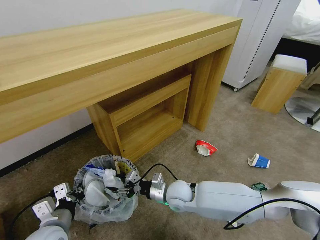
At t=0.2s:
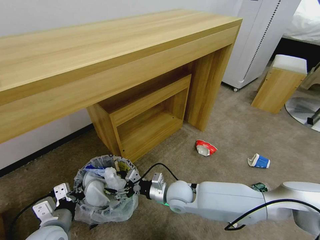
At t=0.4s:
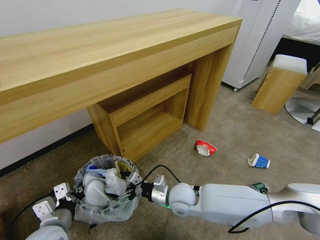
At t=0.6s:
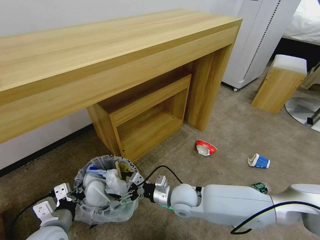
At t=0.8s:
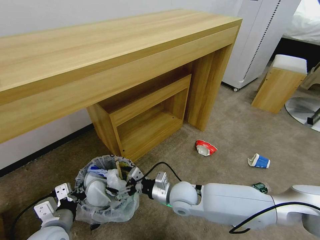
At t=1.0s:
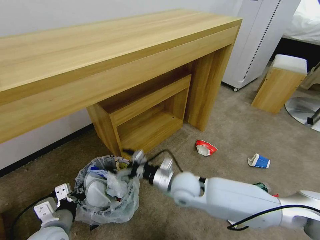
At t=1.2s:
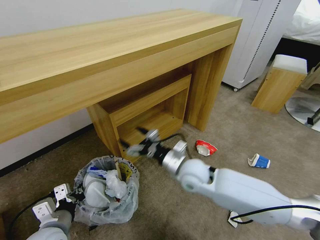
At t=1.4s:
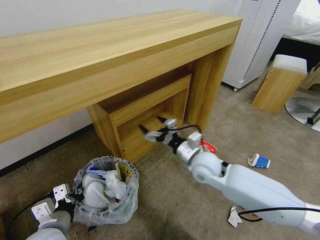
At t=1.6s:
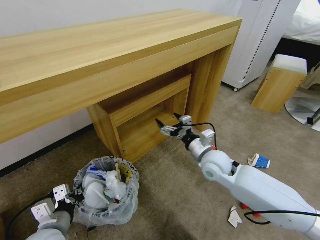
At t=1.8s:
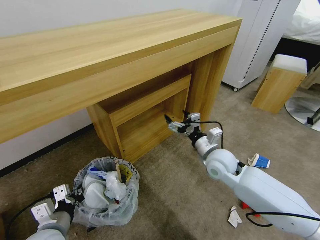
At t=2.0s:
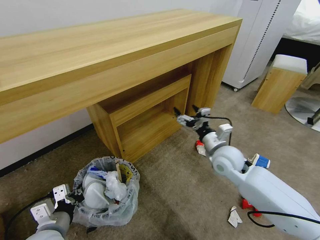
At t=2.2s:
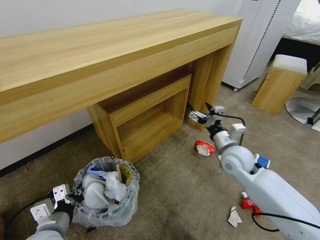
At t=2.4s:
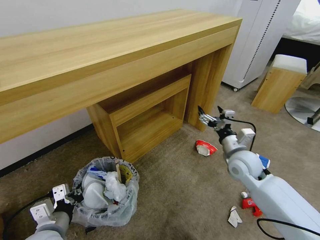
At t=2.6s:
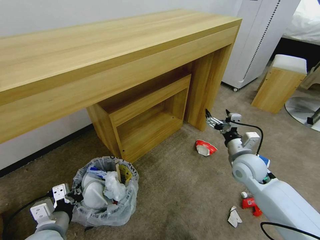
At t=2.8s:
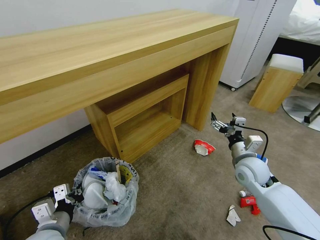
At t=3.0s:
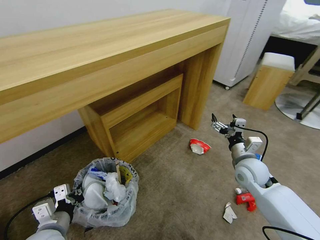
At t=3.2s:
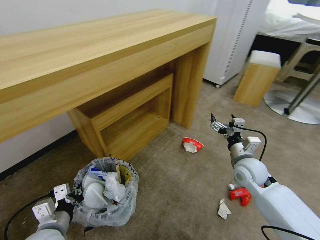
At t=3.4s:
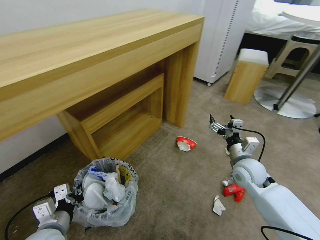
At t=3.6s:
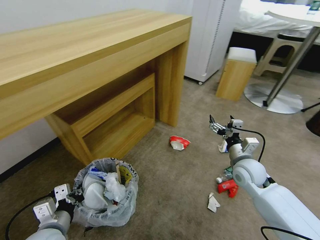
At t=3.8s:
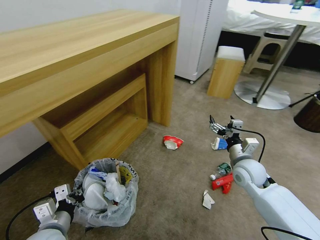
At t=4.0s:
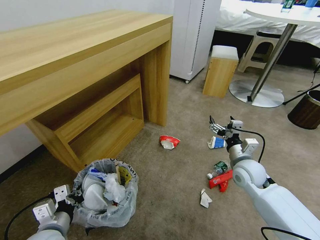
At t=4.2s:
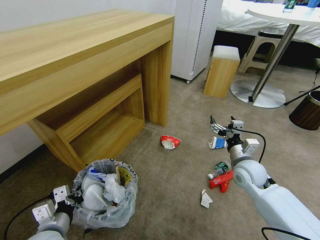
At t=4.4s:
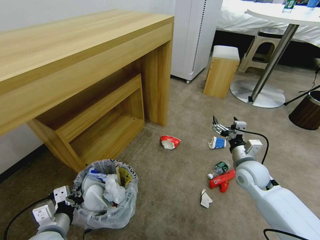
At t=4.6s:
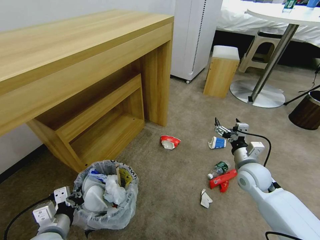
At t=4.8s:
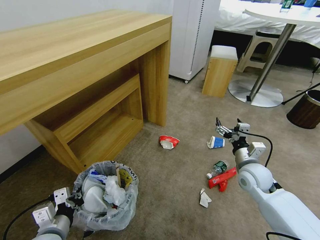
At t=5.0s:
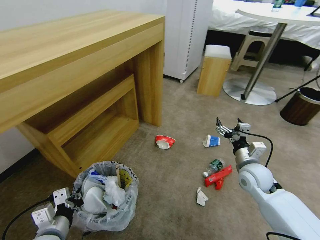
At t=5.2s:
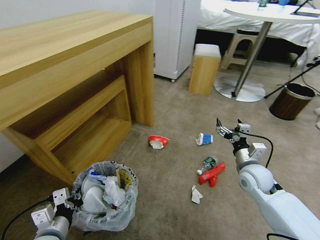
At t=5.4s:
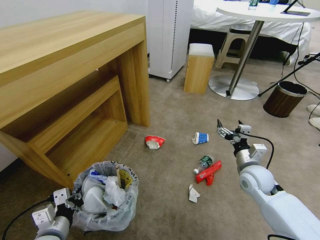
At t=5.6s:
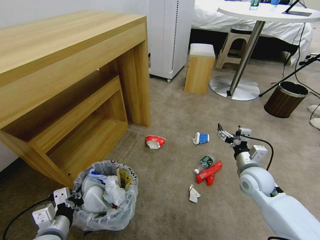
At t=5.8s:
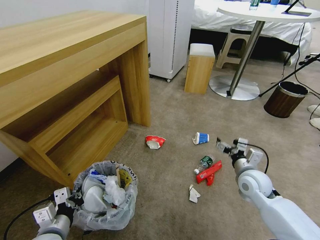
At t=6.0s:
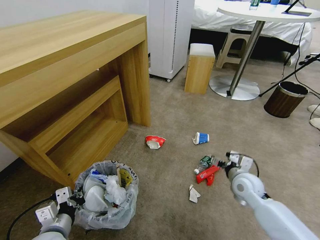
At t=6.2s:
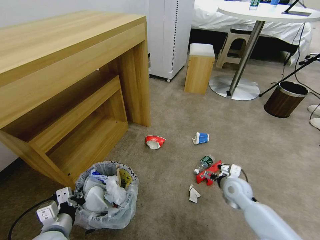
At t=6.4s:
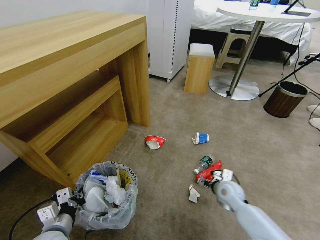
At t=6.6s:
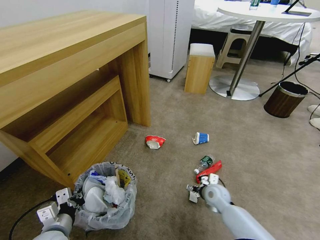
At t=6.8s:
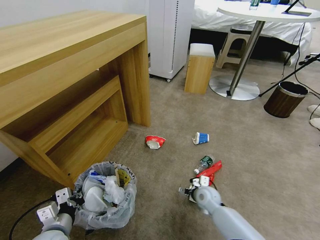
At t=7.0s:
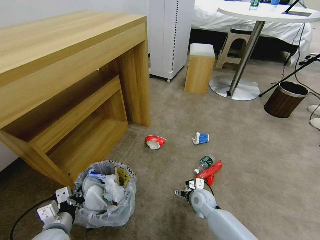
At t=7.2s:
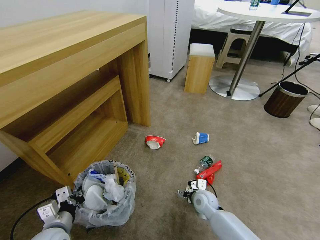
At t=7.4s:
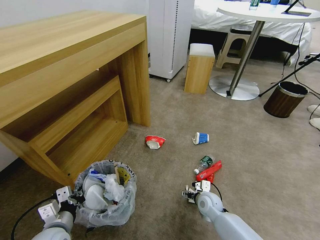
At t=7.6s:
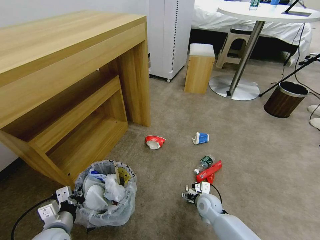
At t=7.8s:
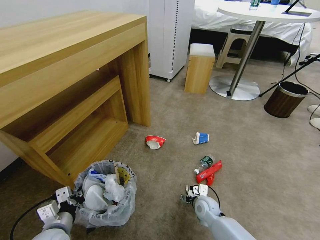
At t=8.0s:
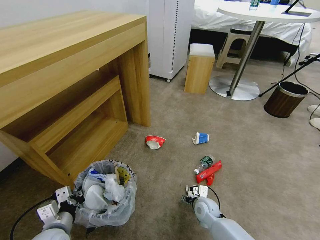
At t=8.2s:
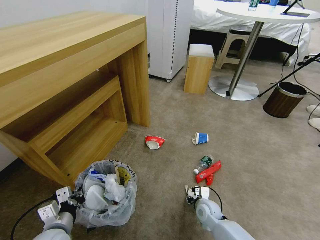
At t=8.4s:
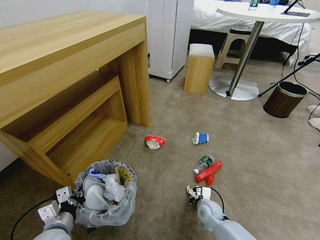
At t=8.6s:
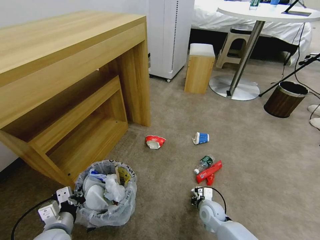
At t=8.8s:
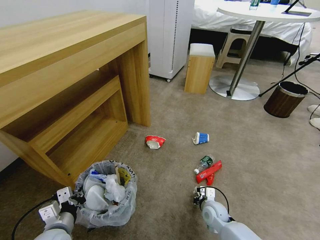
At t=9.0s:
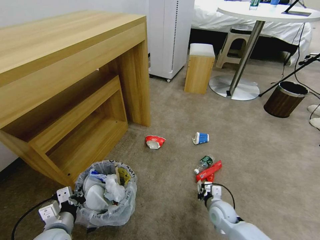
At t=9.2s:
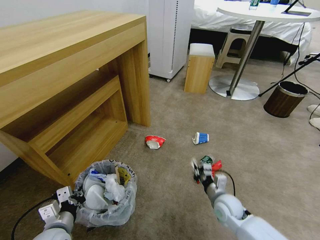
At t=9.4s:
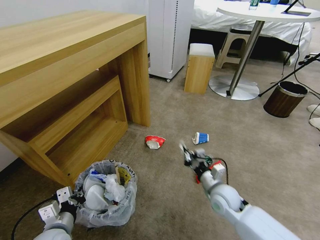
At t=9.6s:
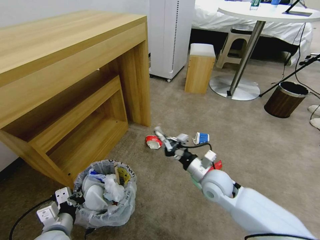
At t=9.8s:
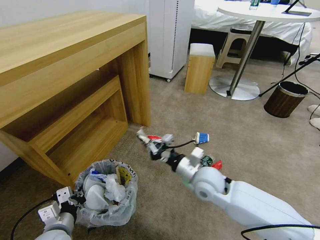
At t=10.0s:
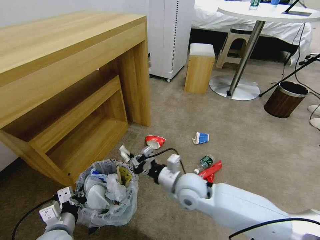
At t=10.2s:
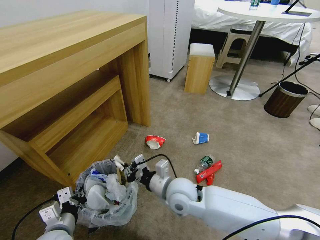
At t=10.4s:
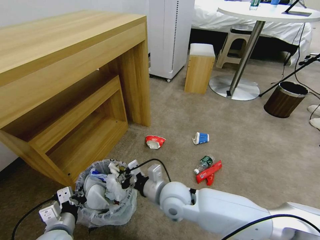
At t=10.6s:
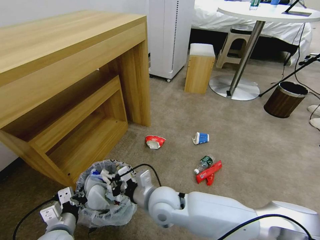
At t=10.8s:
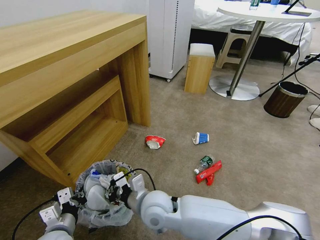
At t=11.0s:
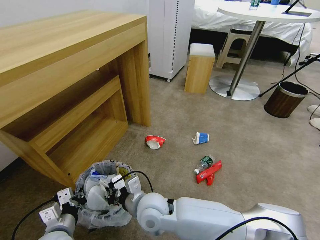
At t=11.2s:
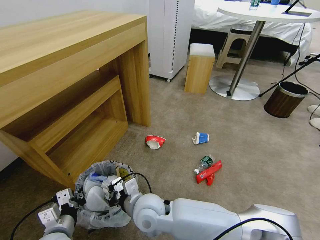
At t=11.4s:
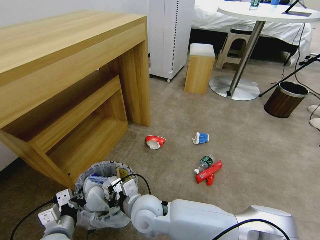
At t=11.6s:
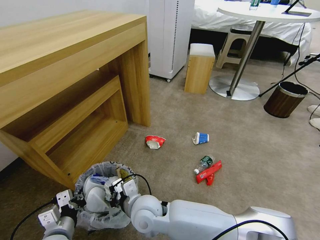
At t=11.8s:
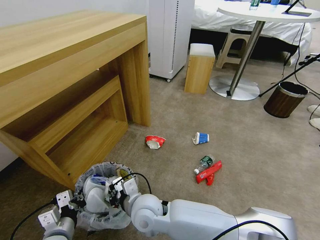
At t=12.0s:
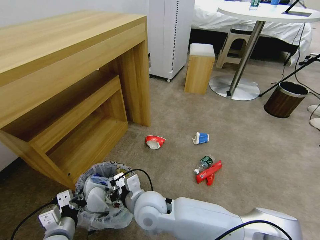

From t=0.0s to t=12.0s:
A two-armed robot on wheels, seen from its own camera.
Task of the whole recording: Pick up the trash bin and place the garbage on the floor into it.
From t=0.0s to t=1.6s: The right gripper goes roughly 15 cm to the right, upward and forward, and opens its fingers.
From t=1.6s to t=3.0s: The right gripper moves to the right, about 10 cm.
From t=4.4s to t=6.0s: The right gripper changes place by some 5 cm.
From t=6.0s to t=7.6s: The right gripper travels downward and to the left by roughly 20 cm.
From t=7.6s to t=9.0s: The right gripper moves some 5 cm, and closes its fingers.
From t=9.0s to t=10.4s: The right gripper moves to the left and upward, some 25 cm.
From t=10.4s to t=12.0s: The right gripper moves to the left, about 5 cm, and opens its fingers.

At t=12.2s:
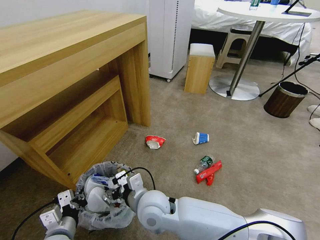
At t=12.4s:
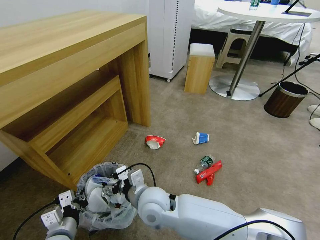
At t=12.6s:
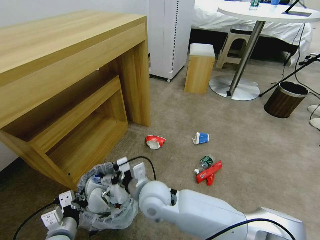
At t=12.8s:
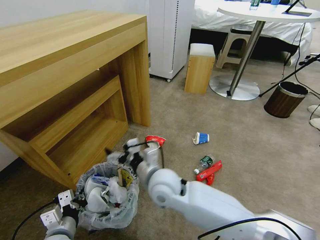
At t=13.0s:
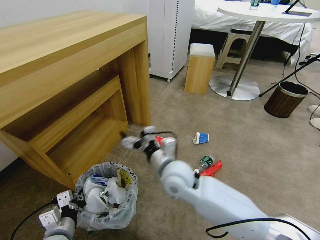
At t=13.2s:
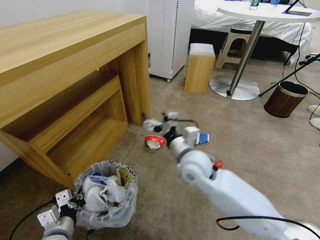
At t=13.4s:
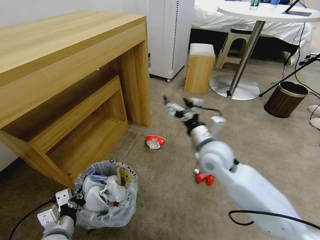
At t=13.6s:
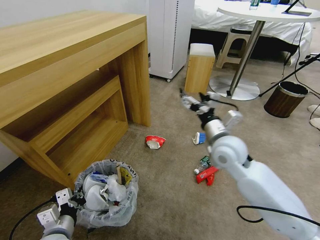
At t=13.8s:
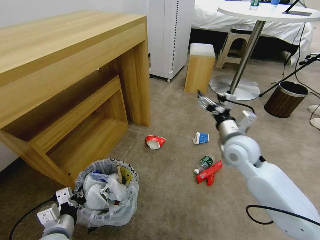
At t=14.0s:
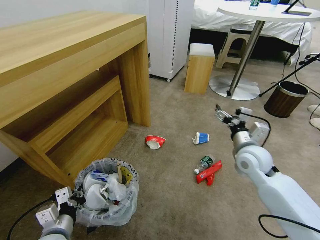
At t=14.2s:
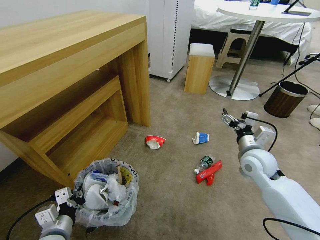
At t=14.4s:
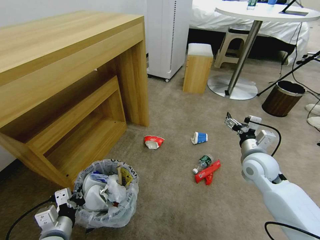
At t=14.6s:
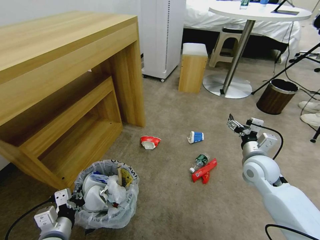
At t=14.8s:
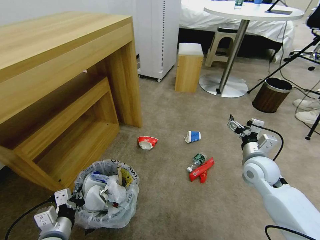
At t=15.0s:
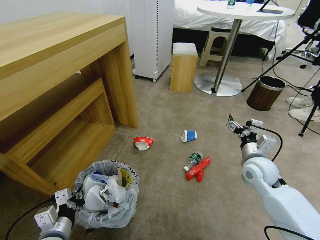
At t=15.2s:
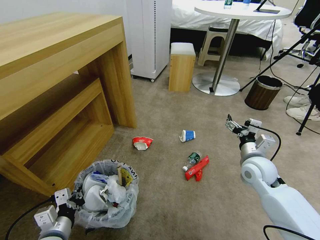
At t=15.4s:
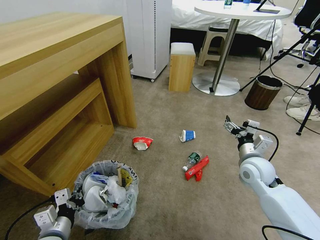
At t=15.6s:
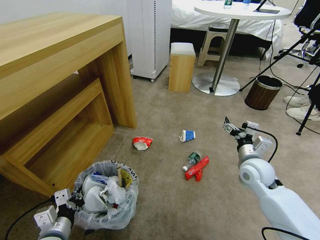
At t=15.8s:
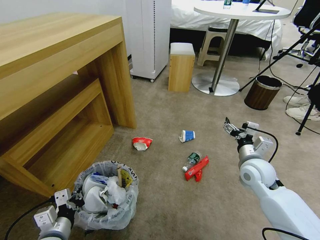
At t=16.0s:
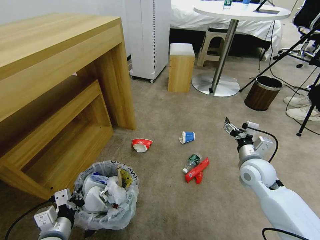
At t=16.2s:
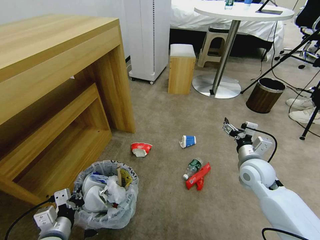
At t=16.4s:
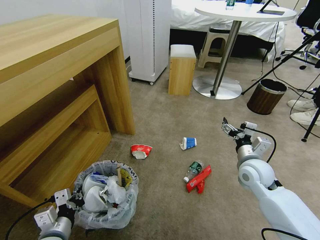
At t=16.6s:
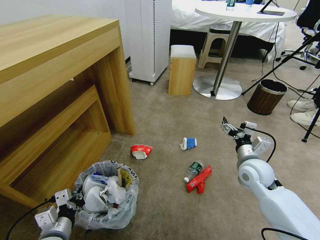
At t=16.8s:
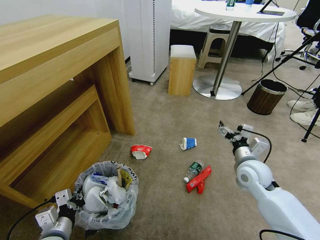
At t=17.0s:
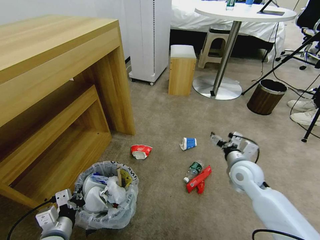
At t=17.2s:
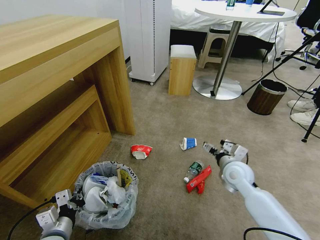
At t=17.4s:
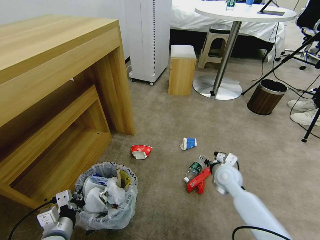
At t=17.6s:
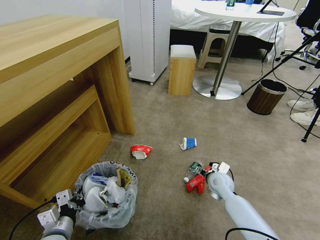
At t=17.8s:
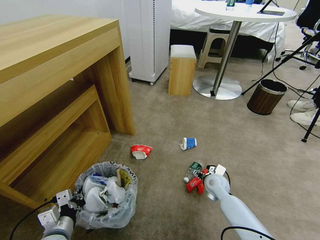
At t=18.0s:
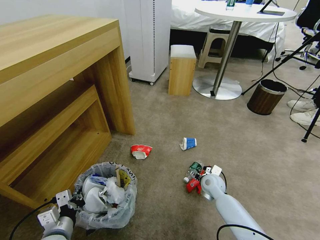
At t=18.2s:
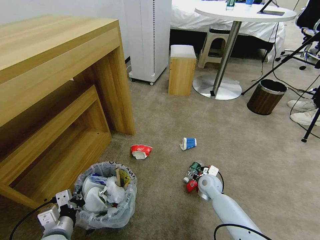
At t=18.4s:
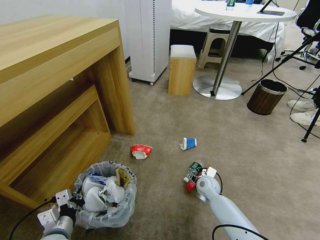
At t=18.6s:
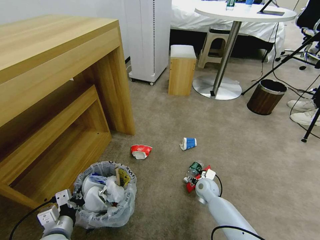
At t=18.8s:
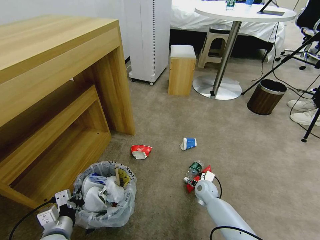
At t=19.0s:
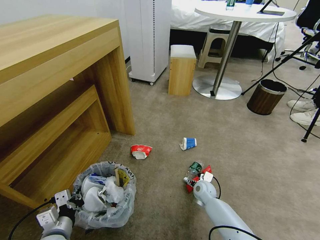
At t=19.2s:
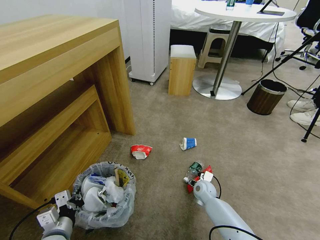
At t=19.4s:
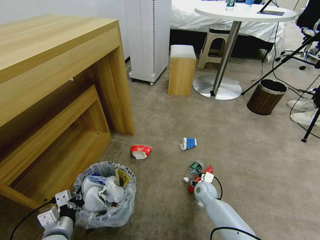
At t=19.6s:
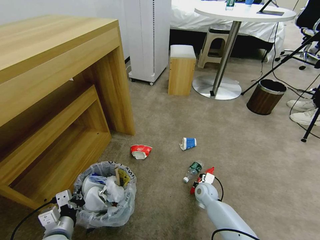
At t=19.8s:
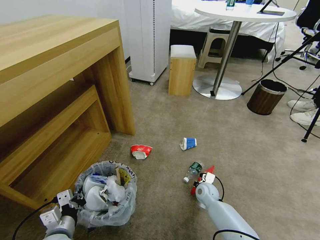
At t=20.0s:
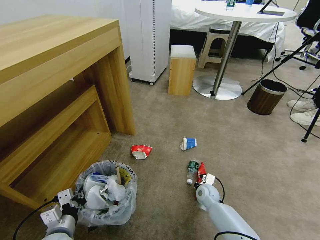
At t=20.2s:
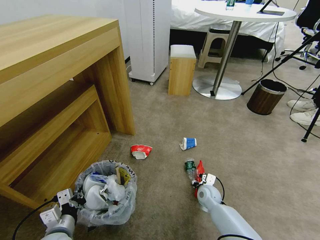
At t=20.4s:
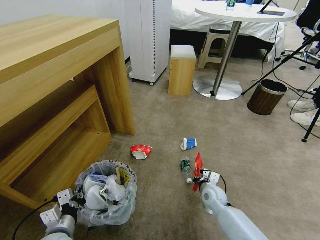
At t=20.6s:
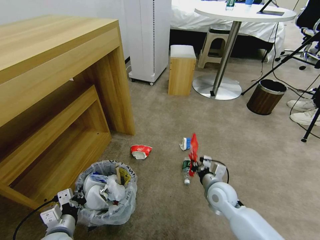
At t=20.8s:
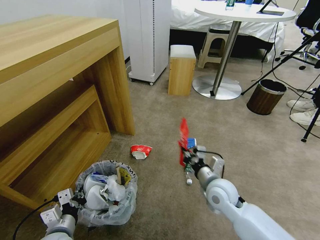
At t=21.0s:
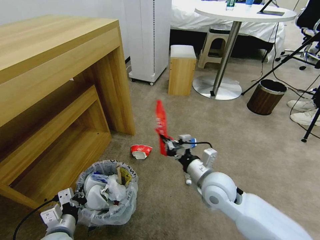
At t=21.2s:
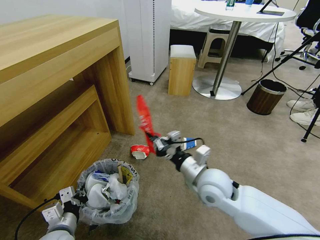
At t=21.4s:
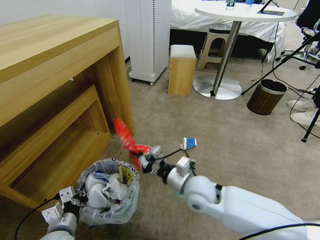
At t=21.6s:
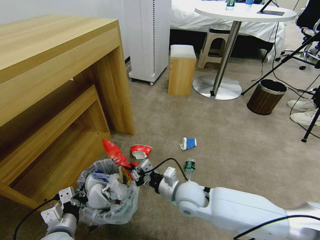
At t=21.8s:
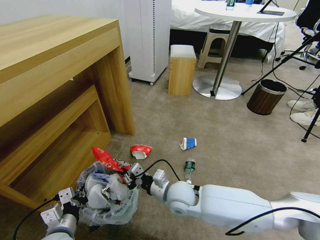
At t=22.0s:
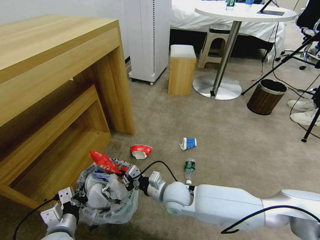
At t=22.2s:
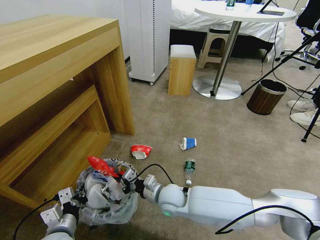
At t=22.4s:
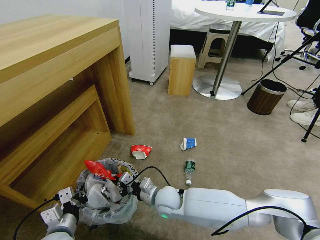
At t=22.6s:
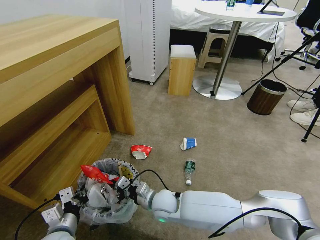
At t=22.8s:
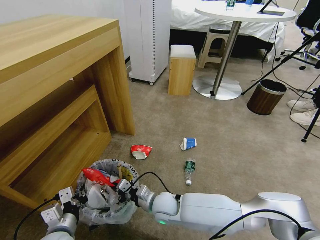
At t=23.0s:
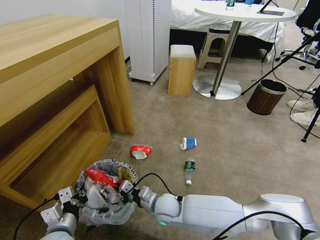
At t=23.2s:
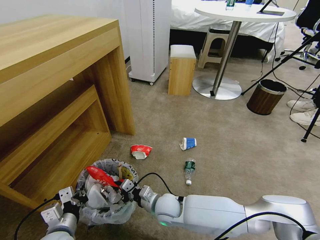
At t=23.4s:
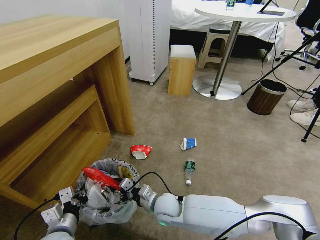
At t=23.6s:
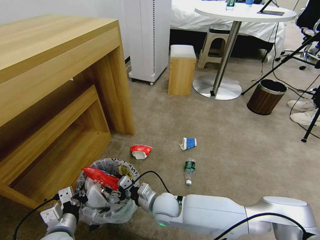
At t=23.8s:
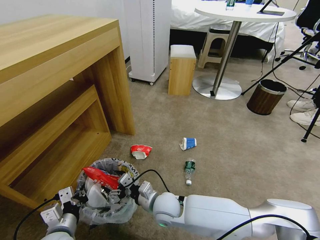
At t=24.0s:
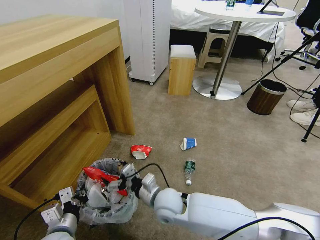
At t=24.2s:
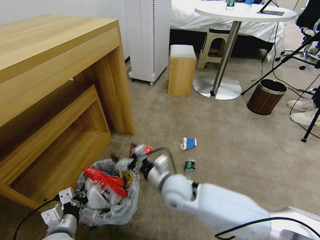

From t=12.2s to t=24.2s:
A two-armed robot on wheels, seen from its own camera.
Task of the whole recording: Pick up the trash bin and place the garbage on the floor into it.
From t=12.2s to t=13.8s: The right gripper moves to the right and forward, some 30 cm.
From t=13.8s to t=15.2s: The right gripper heads downward and to the right, covering approximately 10 cm.
From t=16.6s to t=18.2s: The right gripper heads downward and to the left, covering roughly 20 cm.
From t=18.2s to t=19.8s: The right gripper changes place by roughly 5 cm, and closes its fingers.
From t=19.8s to t=21.2s: The right gripper goes roughly 25 cm upward.
From t=21.2s to t=22.6s: The right gripper moves downward and to the left, about 20 cm.
From t=22.6s to t=24.2s: The right gripper heads upward, covering roughly 10 cm, and opens its fingers.
